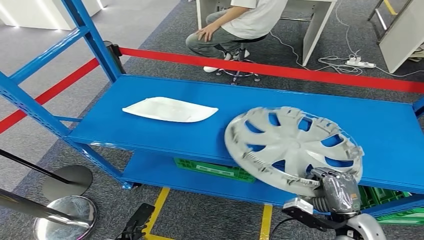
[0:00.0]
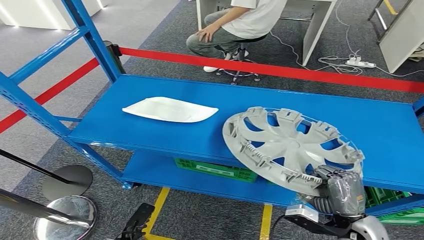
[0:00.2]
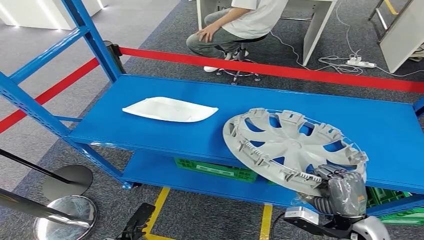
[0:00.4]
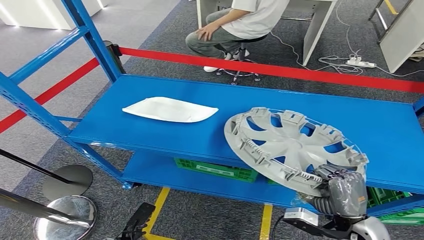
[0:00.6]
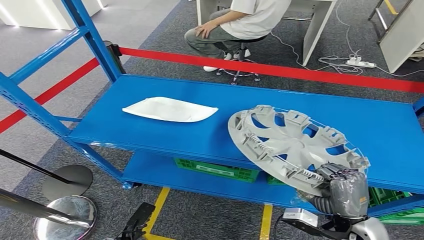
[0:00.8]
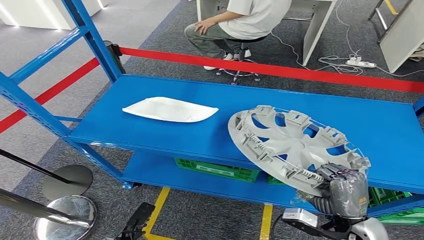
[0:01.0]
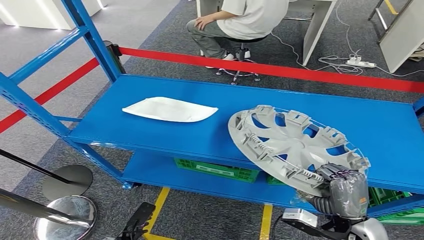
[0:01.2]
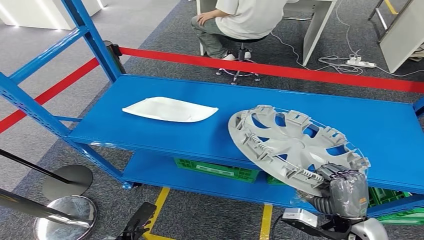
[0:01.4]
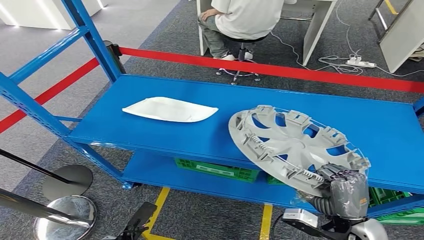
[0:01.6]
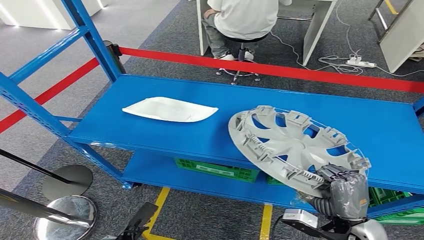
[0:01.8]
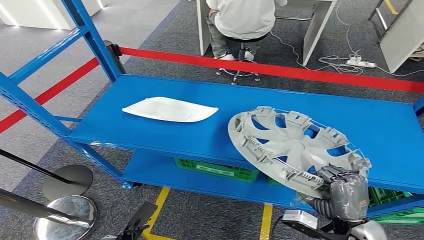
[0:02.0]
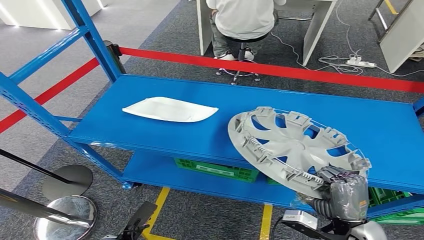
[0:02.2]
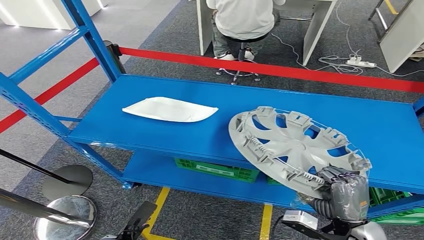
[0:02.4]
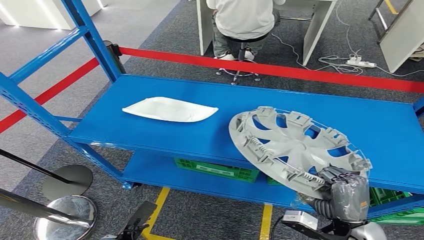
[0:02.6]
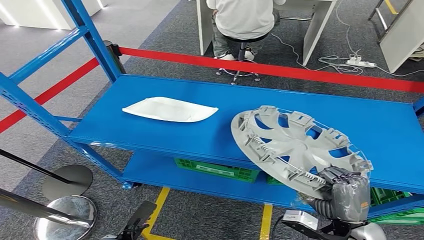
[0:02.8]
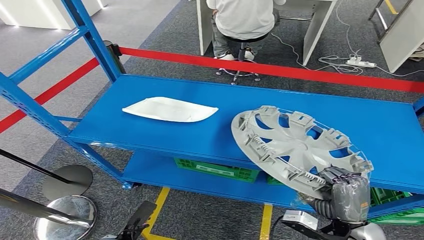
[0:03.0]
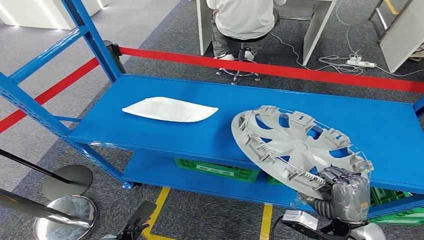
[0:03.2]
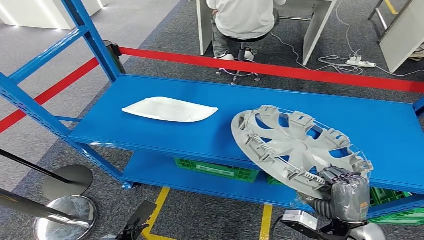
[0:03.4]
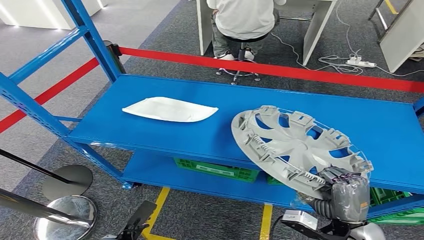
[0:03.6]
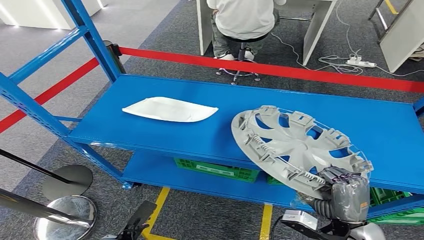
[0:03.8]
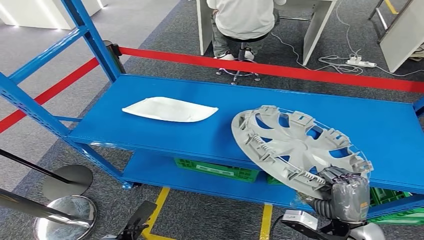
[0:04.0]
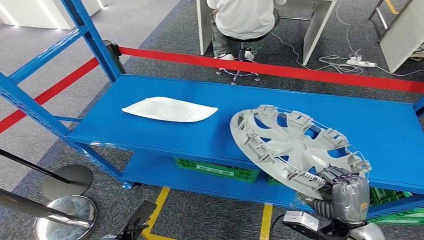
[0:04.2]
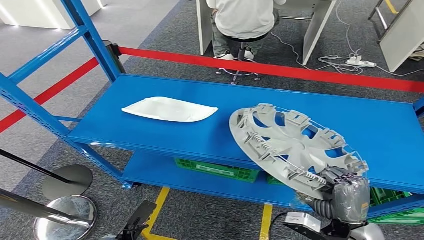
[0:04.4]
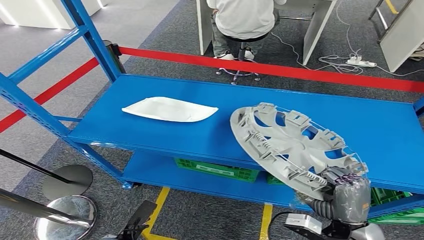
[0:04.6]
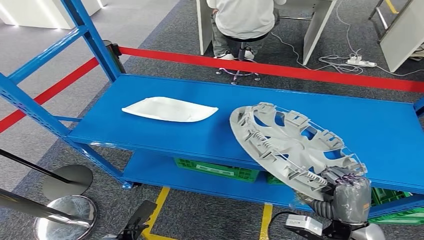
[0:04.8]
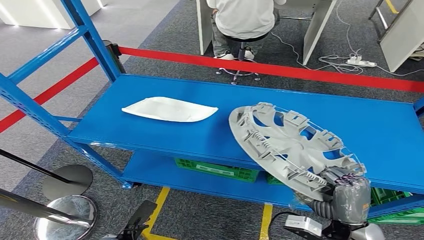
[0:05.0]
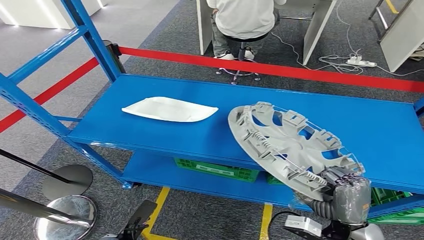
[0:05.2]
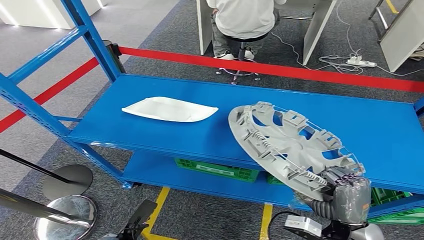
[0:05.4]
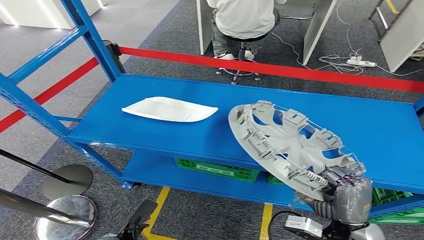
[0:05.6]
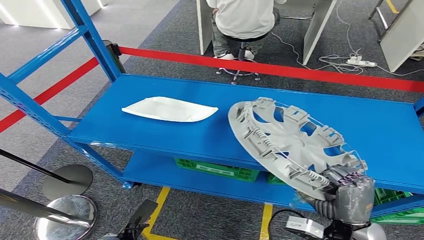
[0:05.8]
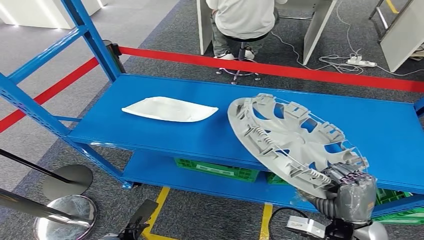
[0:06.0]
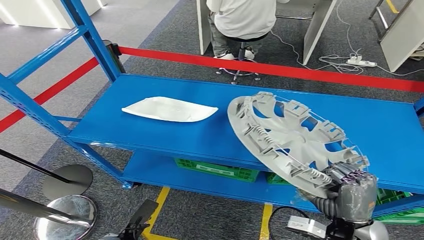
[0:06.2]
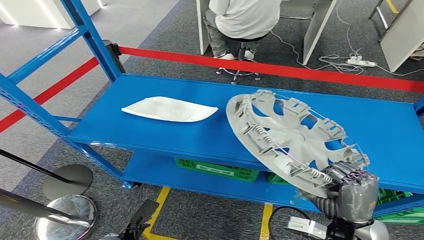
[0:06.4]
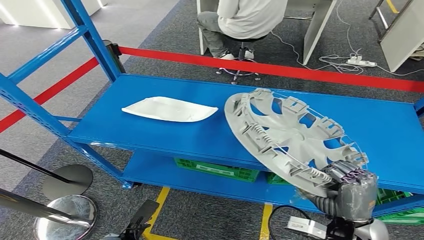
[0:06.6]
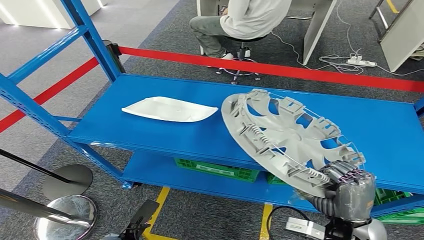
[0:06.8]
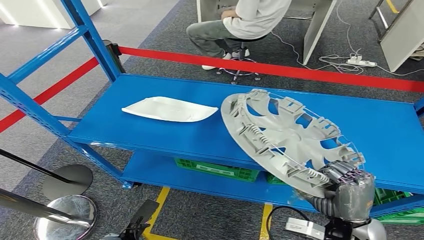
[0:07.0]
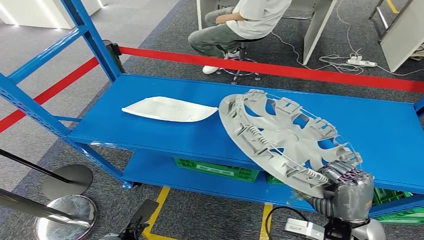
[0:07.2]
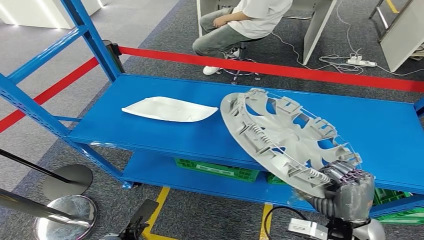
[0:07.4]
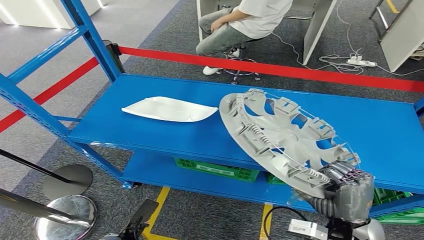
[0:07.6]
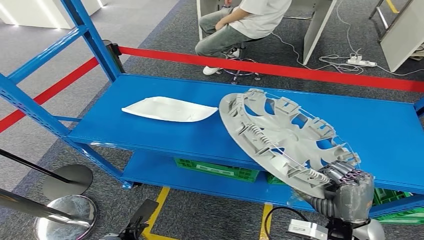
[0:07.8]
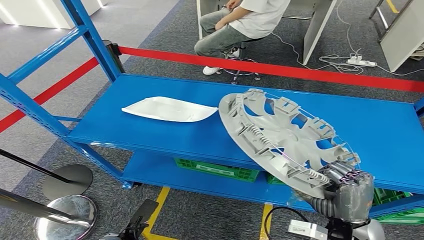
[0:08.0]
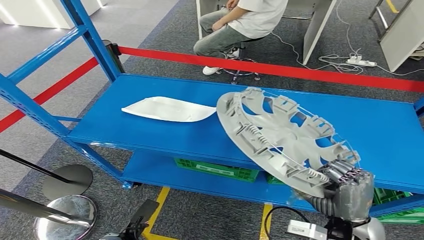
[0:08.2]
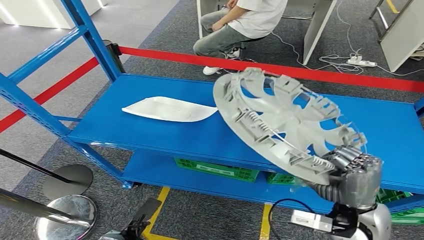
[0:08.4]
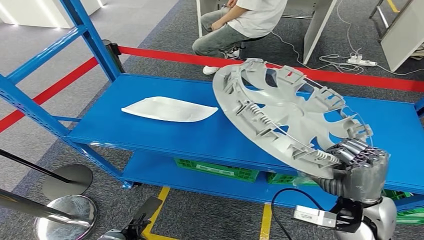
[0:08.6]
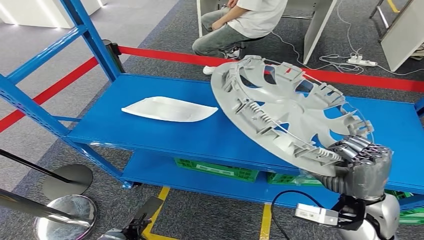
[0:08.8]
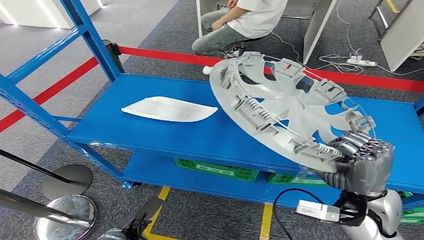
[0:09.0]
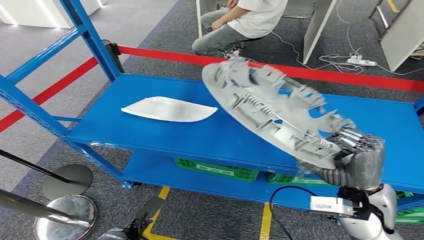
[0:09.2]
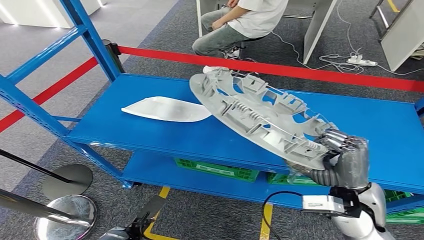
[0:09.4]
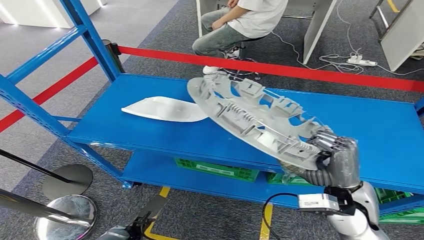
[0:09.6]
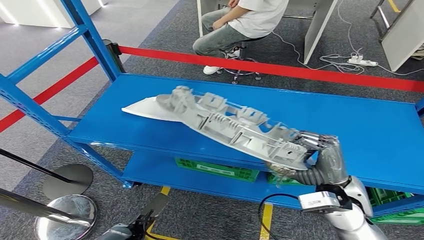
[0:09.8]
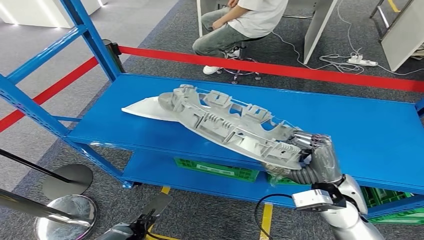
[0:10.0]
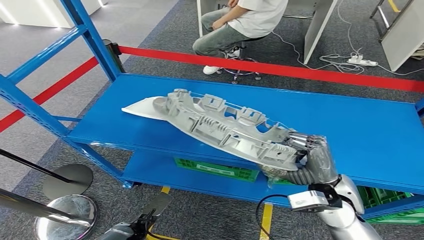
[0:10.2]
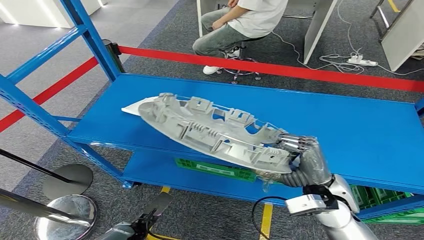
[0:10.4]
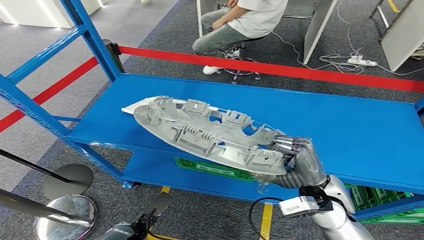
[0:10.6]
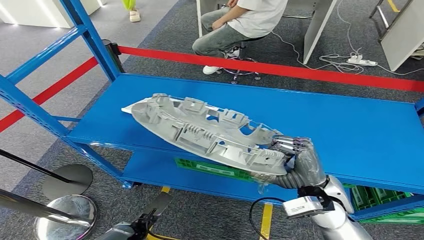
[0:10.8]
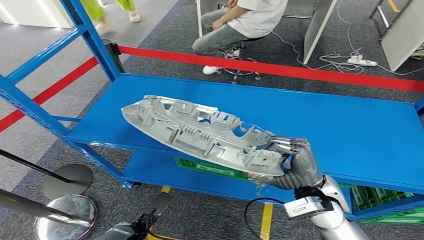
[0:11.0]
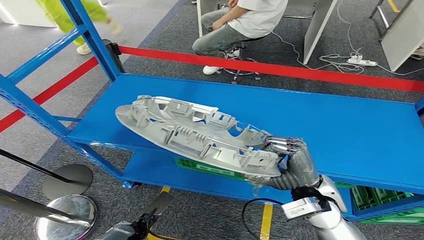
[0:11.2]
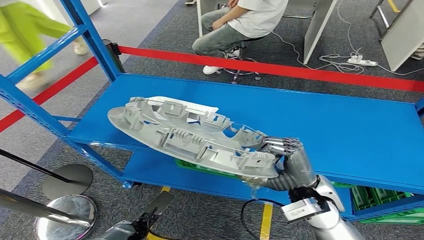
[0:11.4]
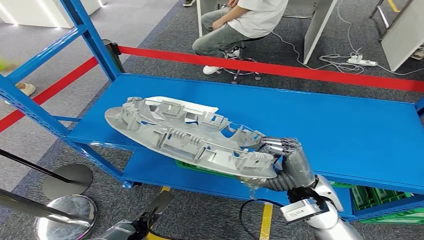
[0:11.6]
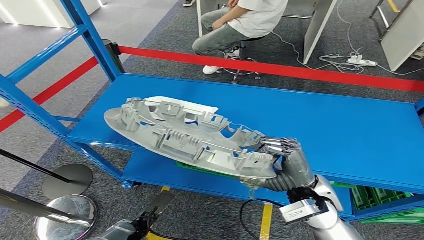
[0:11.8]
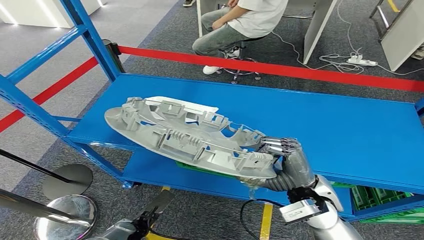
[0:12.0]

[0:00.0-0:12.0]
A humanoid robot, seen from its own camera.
Step, 0:00.0 to 0:09.6: Pick up the small parts from the shelf.
0:00.0 to 0:01.6: The hands move only a little.
0:01.6 to 0:03.0: The two hands keep their place.
0:03.0 to 0:04.4: The two hands keep their place.
0:04.4 to 0:06.0: The hands move only a little.
0:06.0 to 0:07.6: Both hands stay about where they are.
0:10.4 to 0:12.0: The hands move only a little.

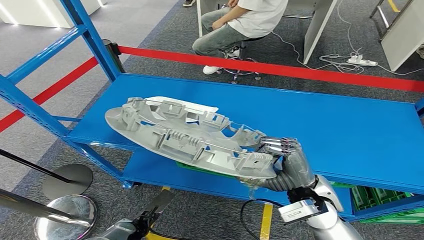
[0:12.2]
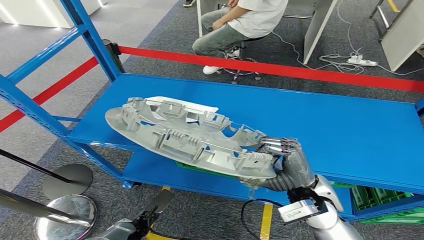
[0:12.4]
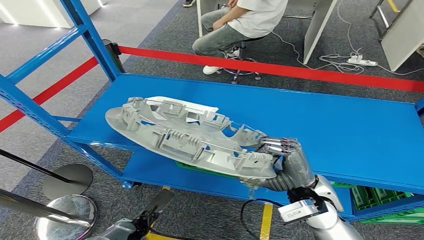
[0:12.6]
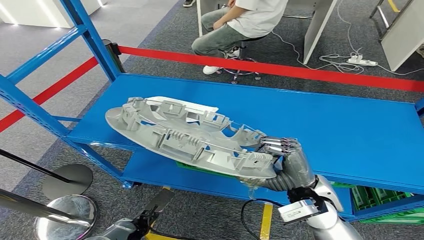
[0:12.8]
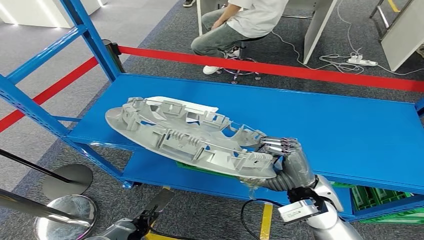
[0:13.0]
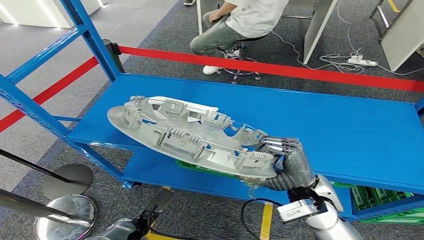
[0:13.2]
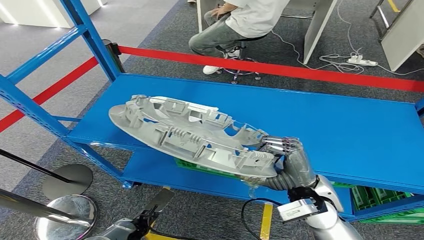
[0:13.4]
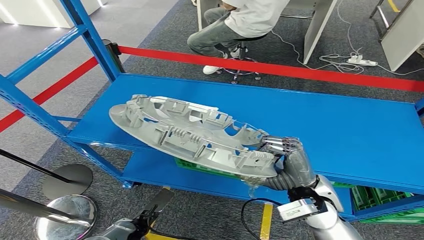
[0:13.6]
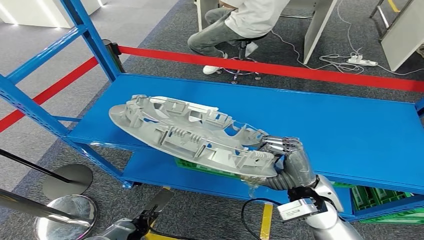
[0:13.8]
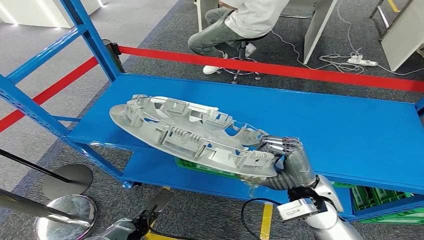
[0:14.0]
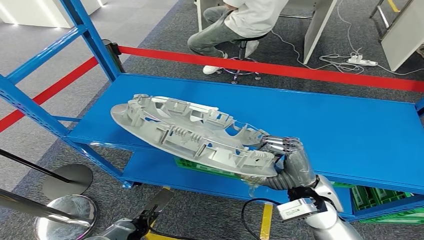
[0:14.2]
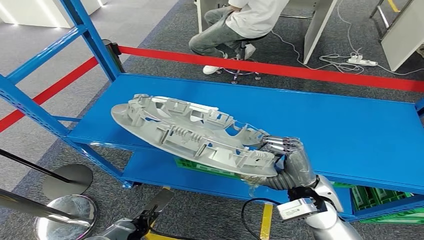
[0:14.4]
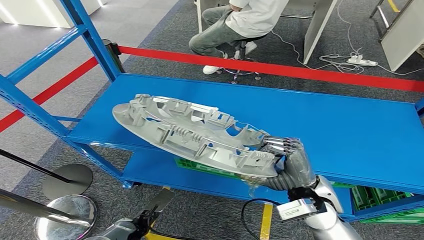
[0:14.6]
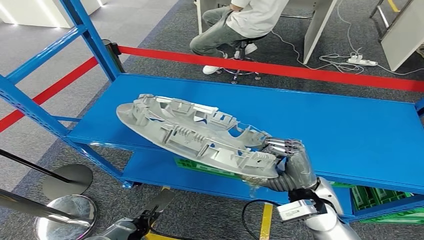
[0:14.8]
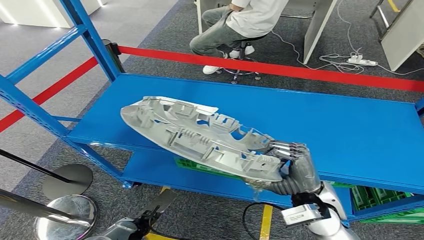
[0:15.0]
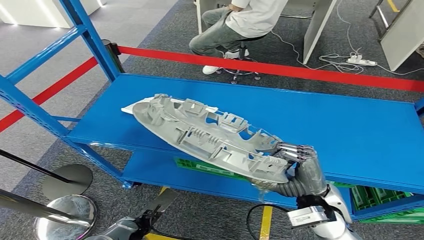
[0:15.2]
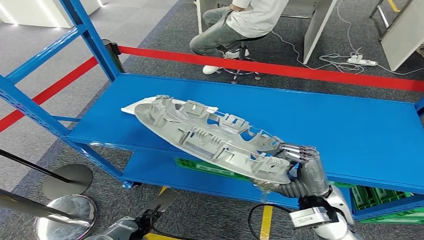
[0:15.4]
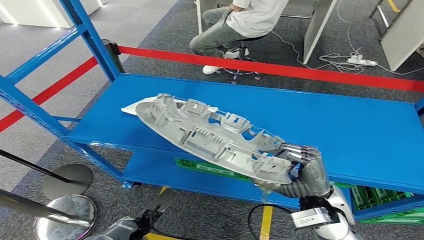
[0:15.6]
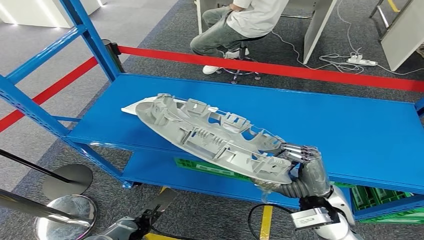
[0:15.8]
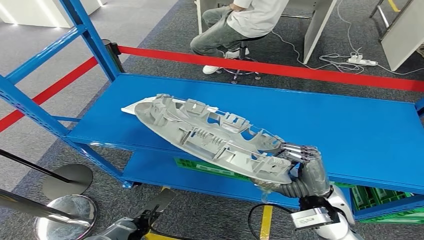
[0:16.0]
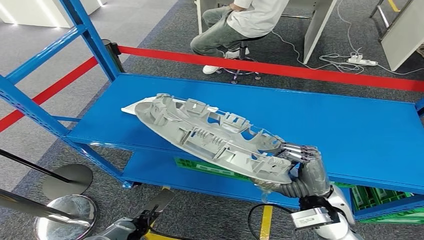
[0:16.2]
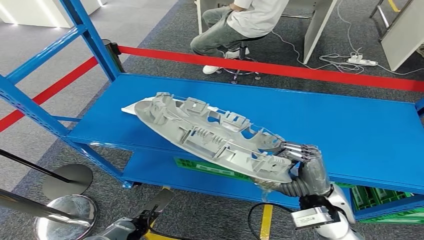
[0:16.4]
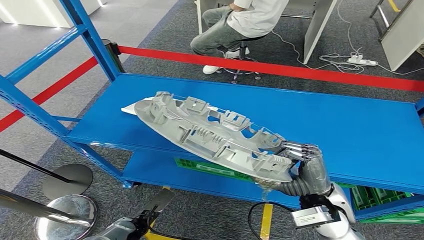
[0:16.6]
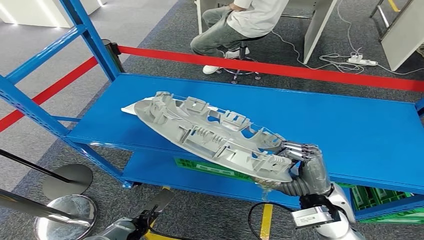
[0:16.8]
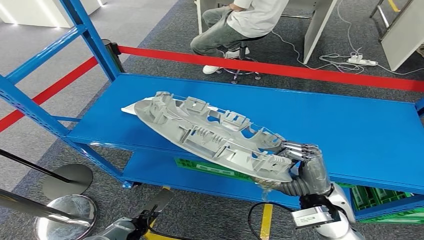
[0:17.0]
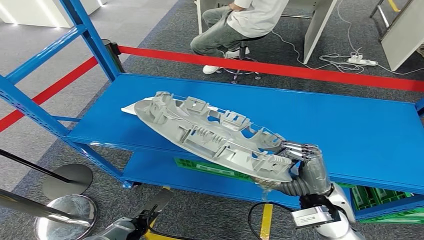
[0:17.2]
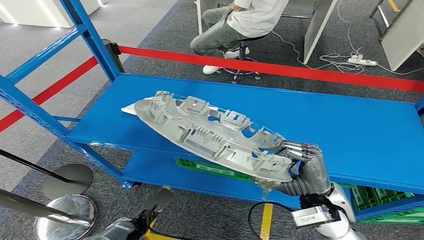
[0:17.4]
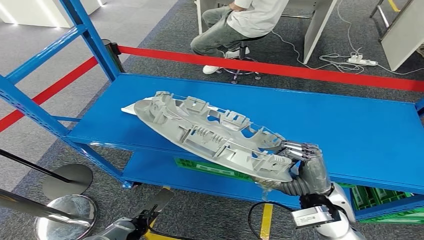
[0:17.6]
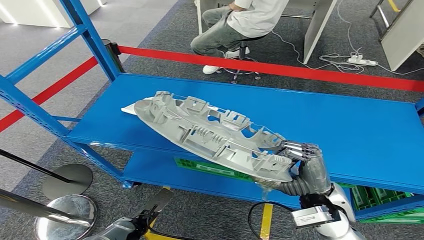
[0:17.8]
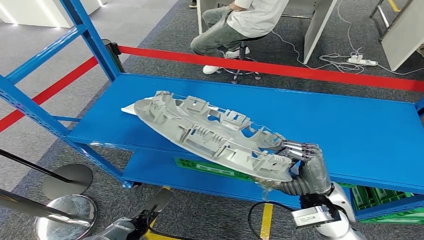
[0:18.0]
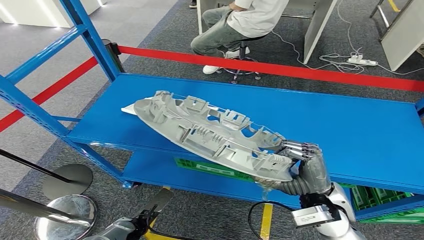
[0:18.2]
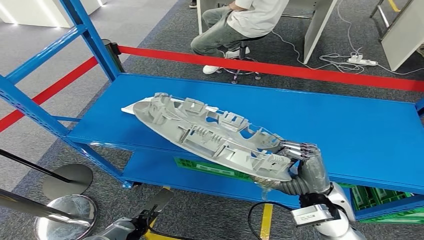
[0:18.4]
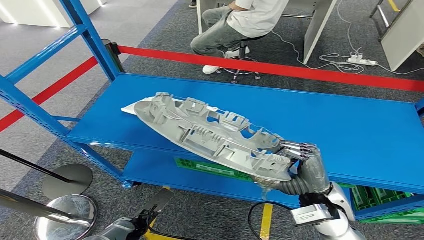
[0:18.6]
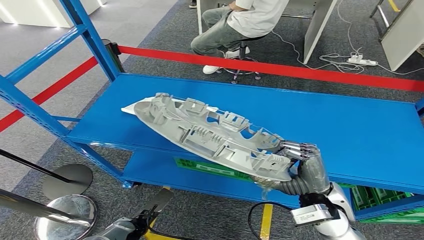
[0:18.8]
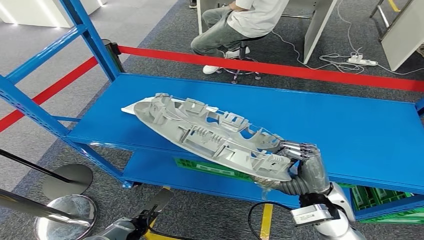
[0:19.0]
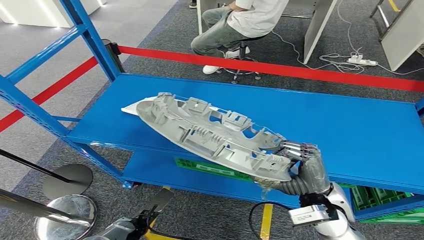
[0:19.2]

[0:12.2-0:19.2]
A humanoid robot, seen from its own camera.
0:12.2 to 0:13.6: Neither hand changes place.
0:13.6 to 0:16.4: The hands make only small movements.
0:16.4 to 0:19.2: The two hands keep their place.
